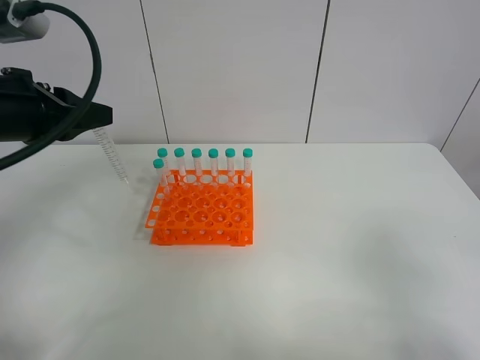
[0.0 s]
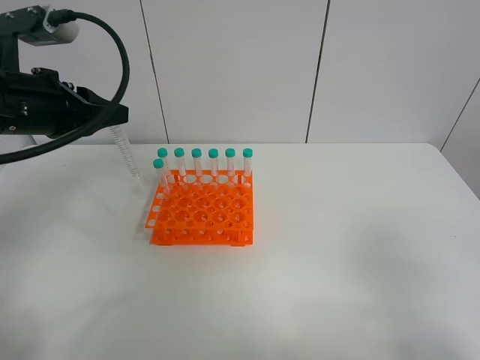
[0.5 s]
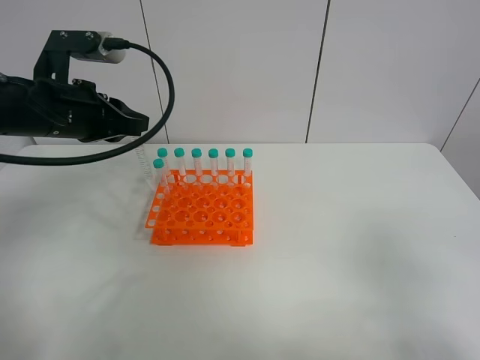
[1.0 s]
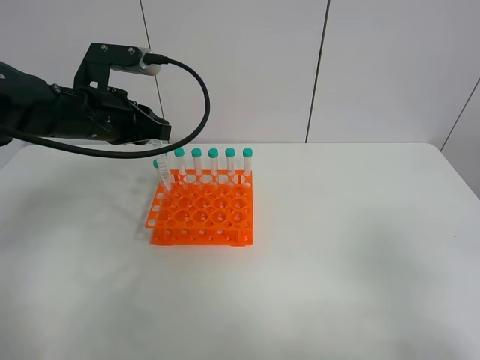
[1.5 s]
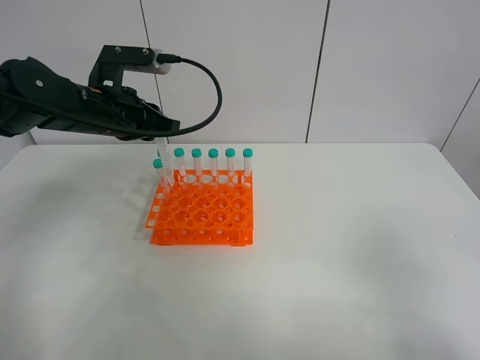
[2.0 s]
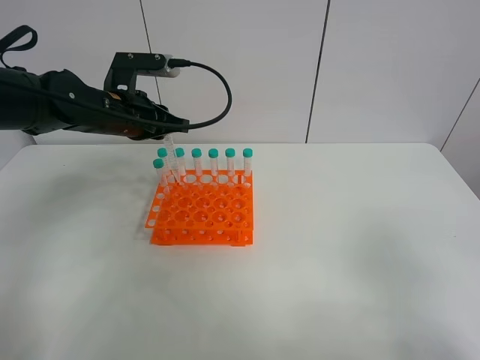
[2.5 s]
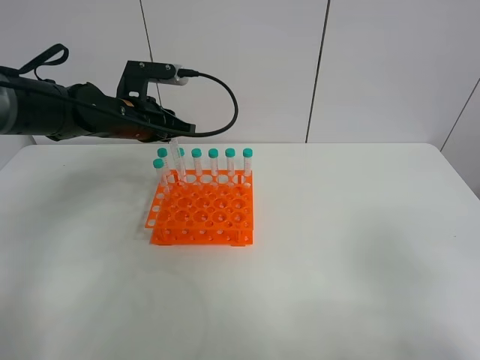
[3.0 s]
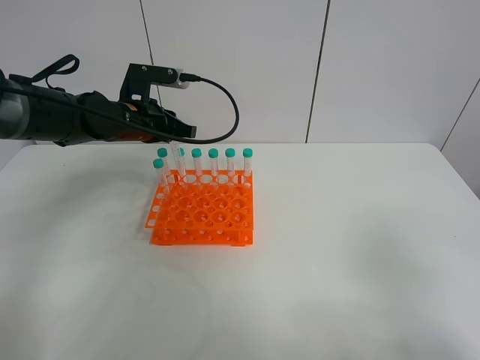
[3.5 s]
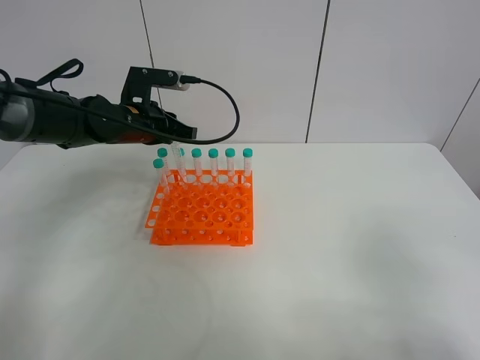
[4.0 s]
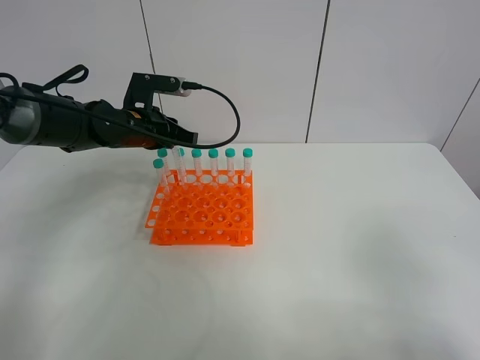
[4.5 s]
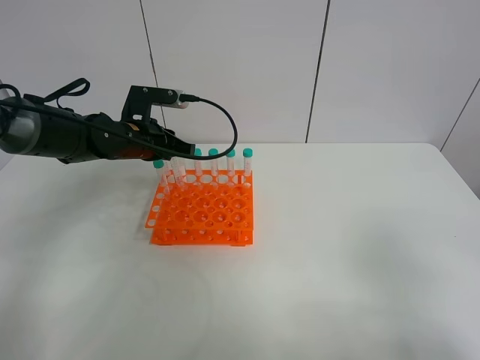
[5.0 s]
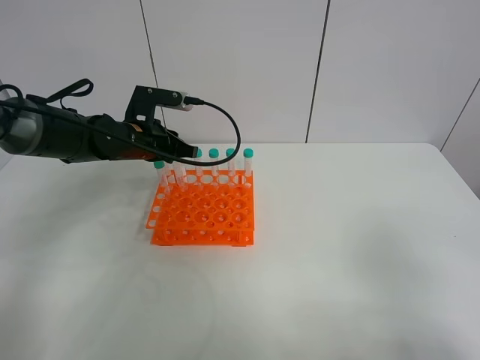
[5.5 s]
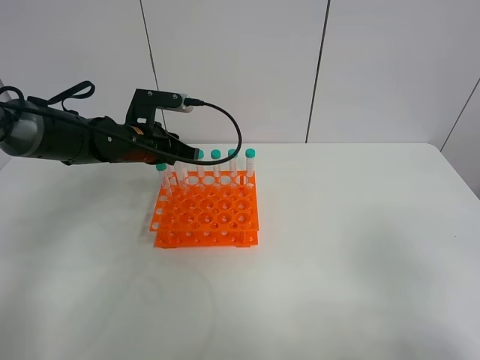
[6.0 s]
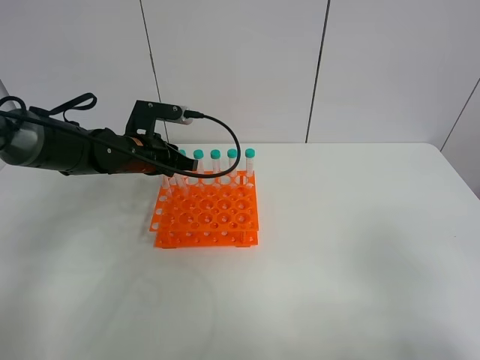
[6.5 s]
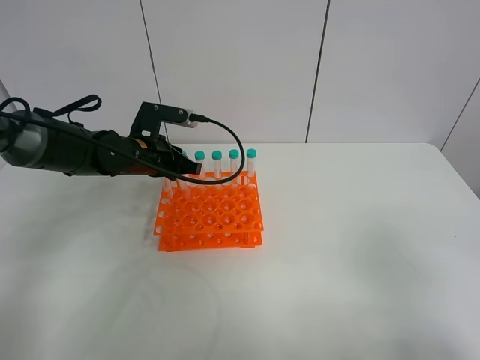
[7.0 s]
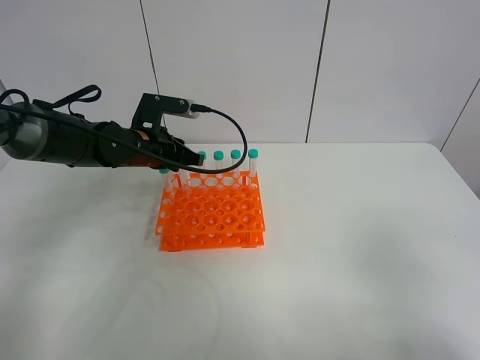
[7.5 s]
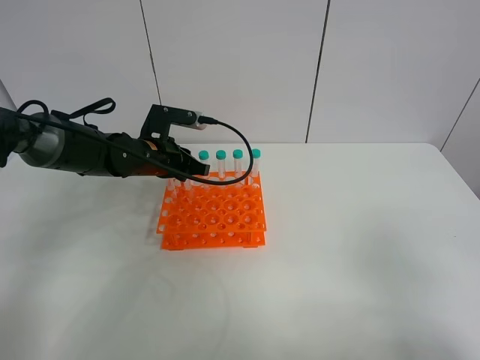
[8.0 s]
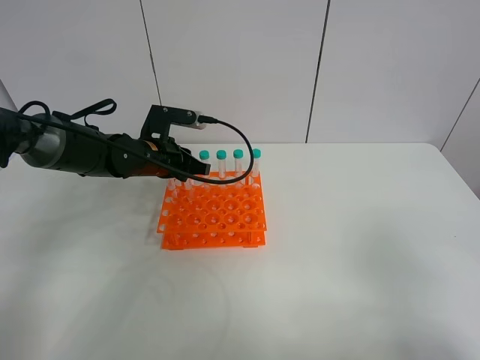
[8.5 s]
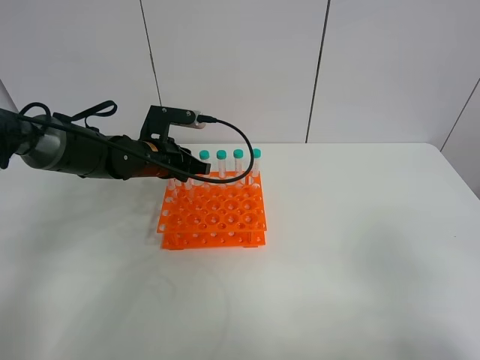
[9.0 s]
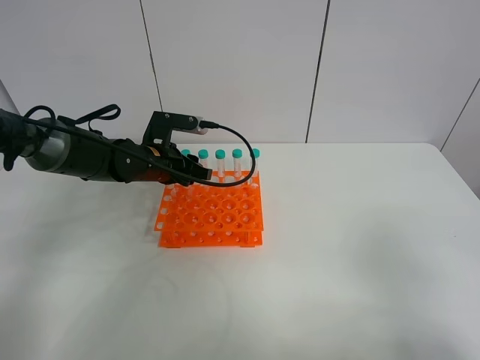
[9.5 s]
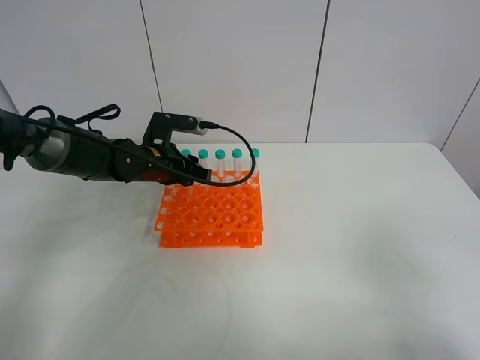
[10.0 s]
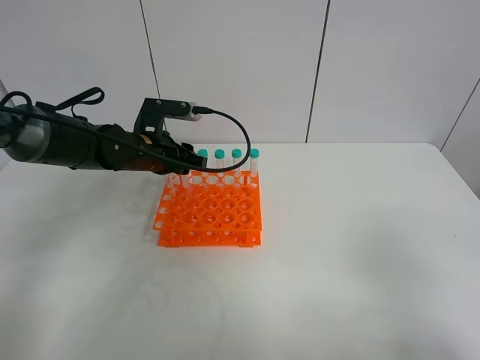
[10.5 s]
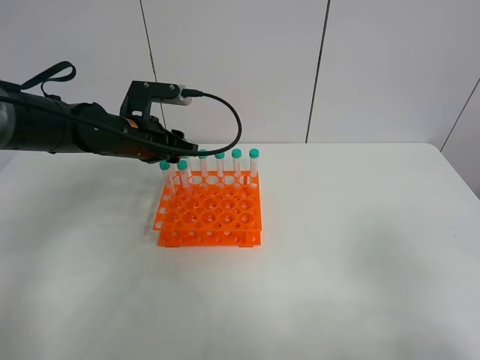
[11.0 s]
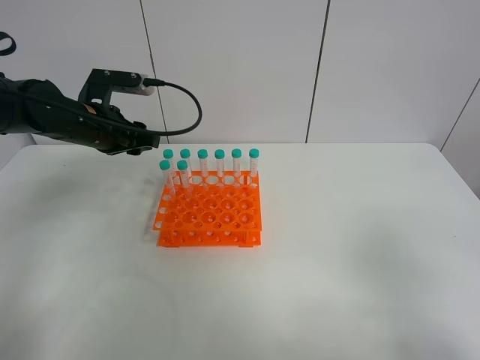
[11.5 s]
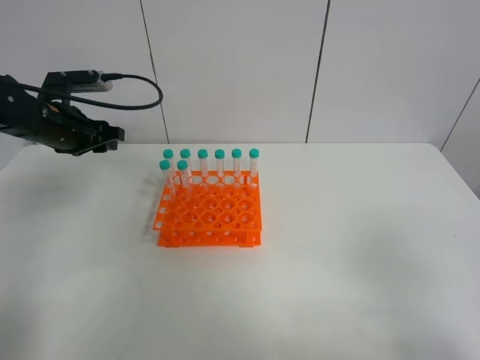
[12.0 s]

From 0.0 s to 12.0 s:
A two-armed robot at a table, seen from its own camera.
Task of the whole recording: Put the test tube on the table back onto the test tube rack.
Step, from 0.0 s to 11.5 s: Place the test tube on the test tube rack with the left gripper.
From 0.0 s to 2.0 s: The left gripper travels forward, to the right and downward by approximately 15 cm.
From 2.0 s to 4.0 s: The left gripper is displaced forward and downward by some 10 cm.
From 4.0 s to 8.0 s: There are only small adjustments of the grippers.
From 8.0 s to 10.0 s: The left gripper opens.
From 10.0 s to 12.0 s: The left gripper heads to the left and upward, covering about 15 cm.

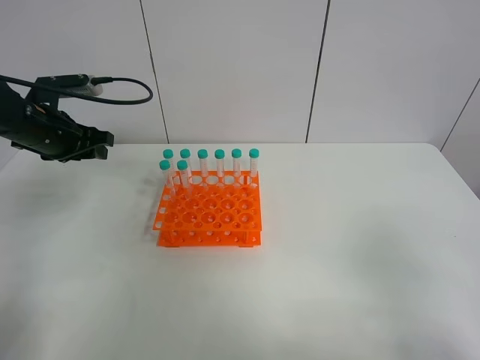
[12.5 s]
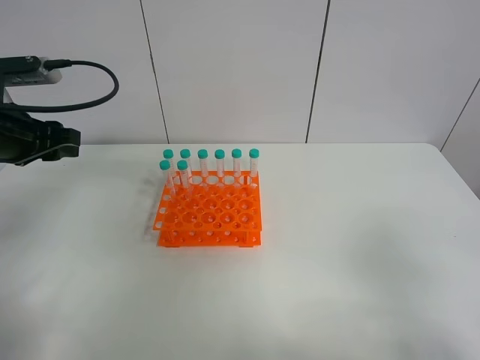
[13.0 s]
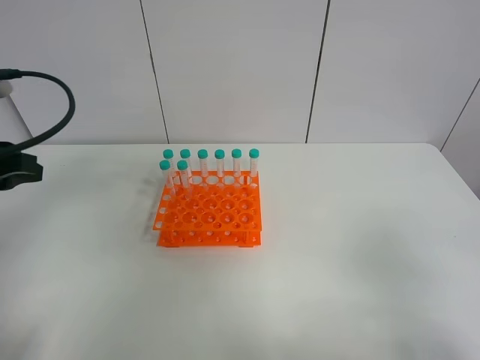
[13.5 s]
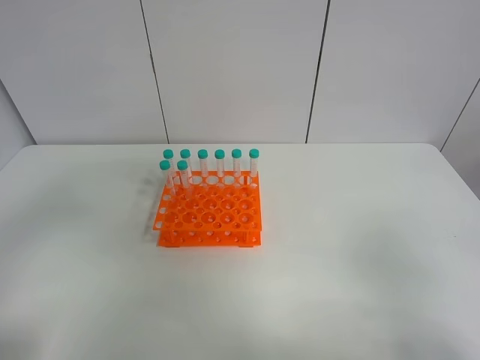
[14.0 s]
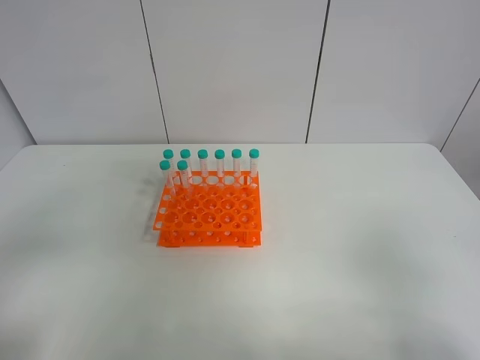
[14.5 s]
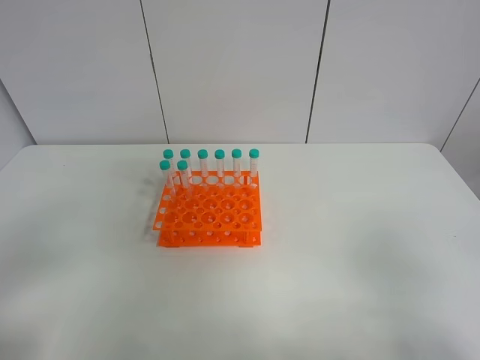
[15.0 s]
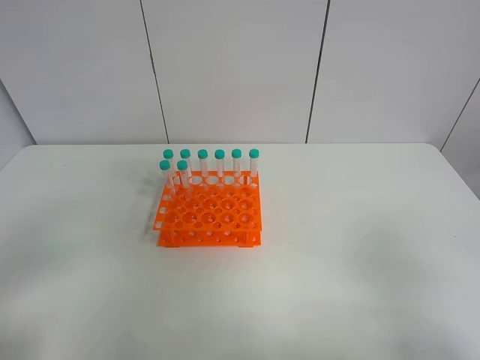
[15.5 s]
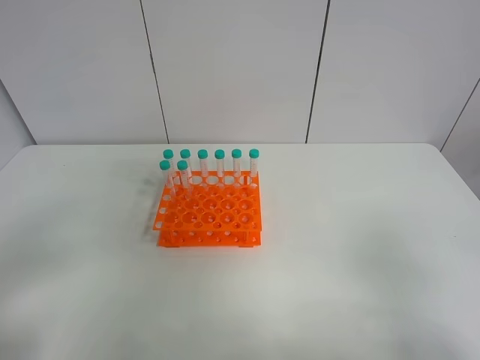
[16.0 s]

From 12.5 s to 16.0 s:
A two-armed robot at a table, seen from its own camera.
Task of the whole recording: Put the test tube on the table back onto the test tube rack.
From 12.5 s to 14.5 s: The left gripper travels backward by some 35 cm.

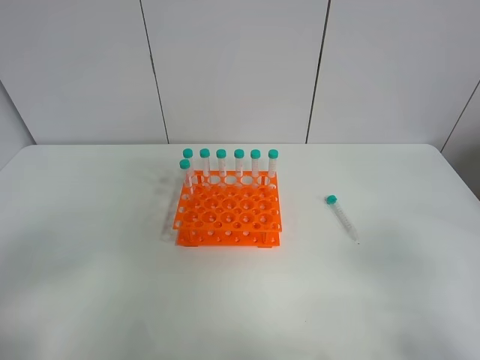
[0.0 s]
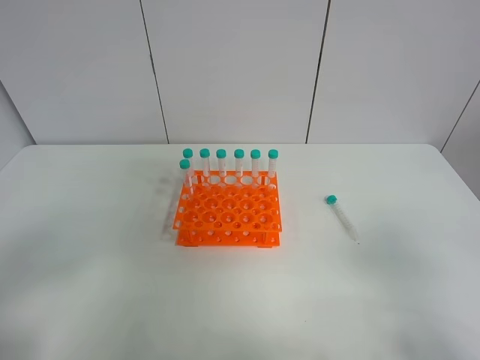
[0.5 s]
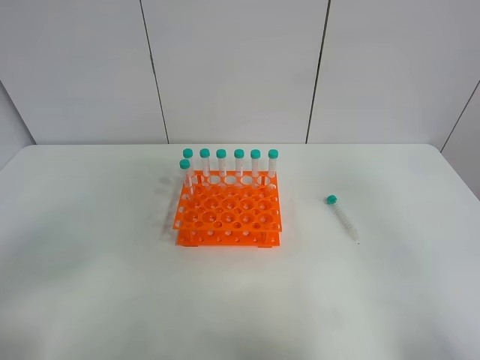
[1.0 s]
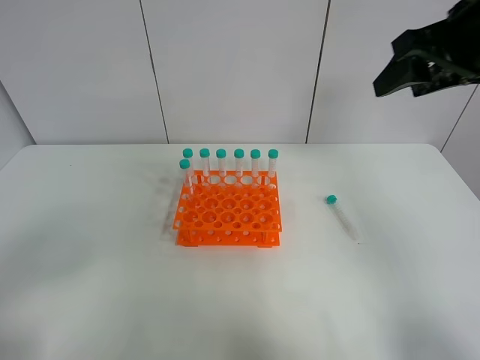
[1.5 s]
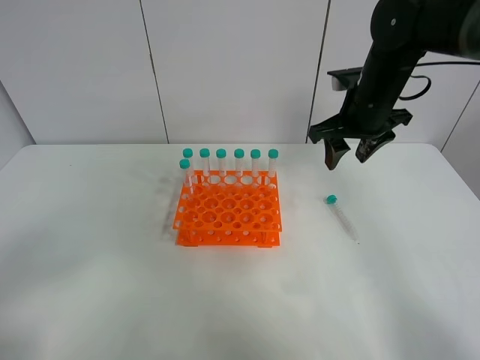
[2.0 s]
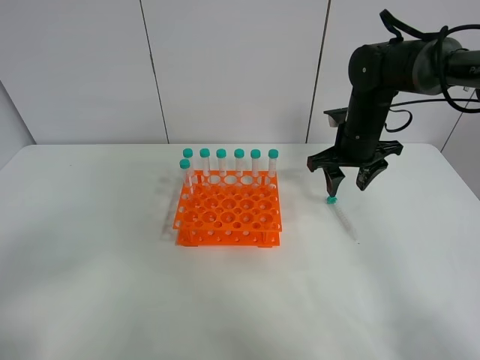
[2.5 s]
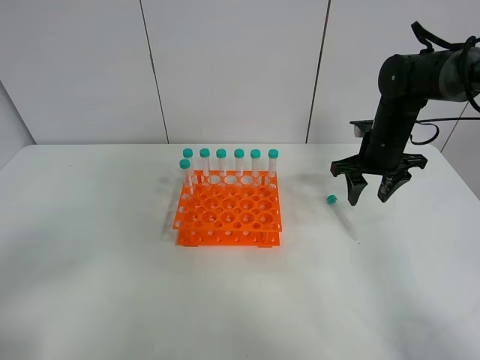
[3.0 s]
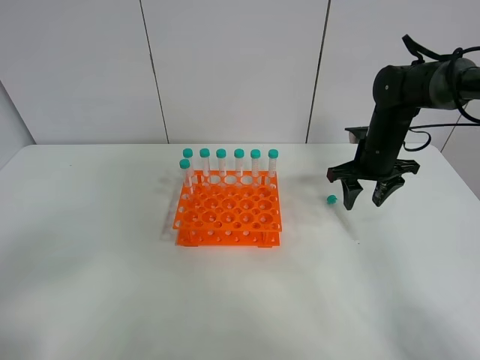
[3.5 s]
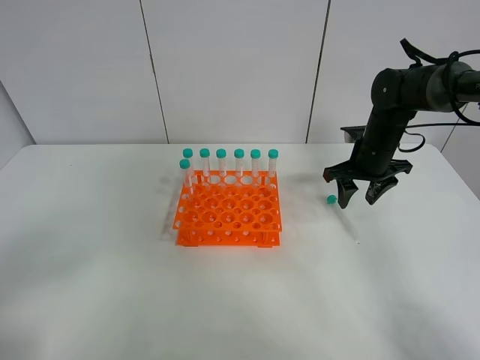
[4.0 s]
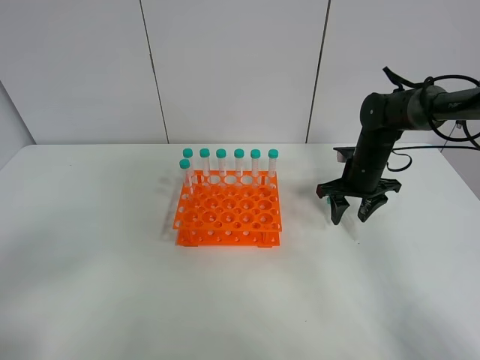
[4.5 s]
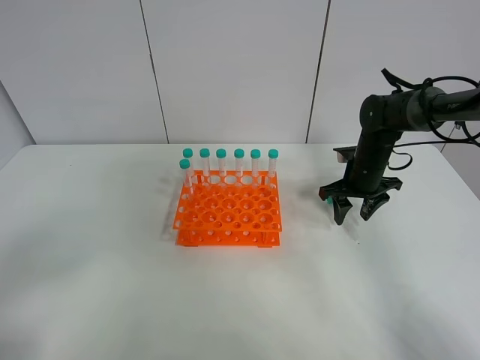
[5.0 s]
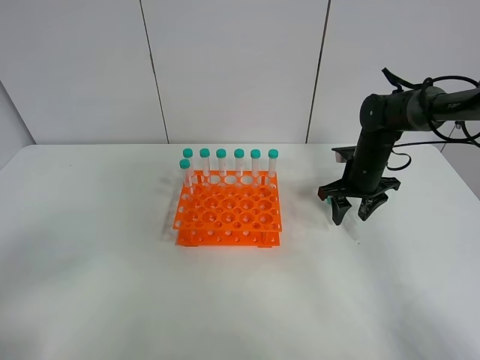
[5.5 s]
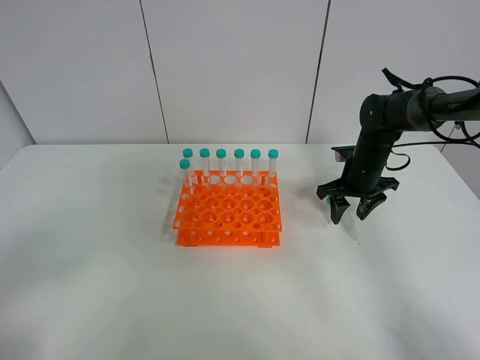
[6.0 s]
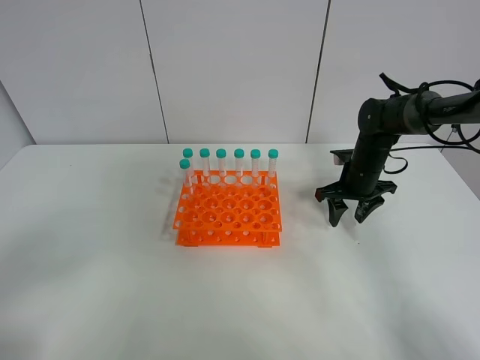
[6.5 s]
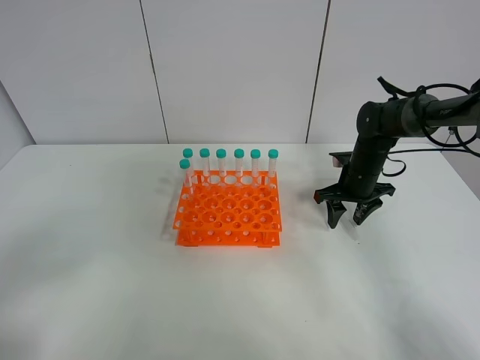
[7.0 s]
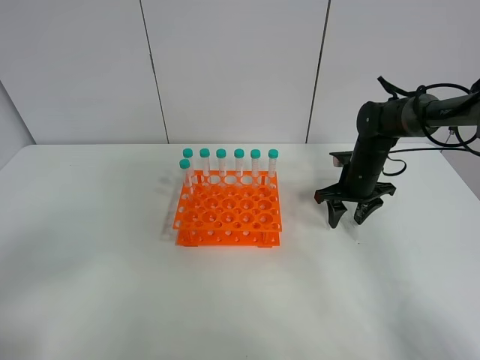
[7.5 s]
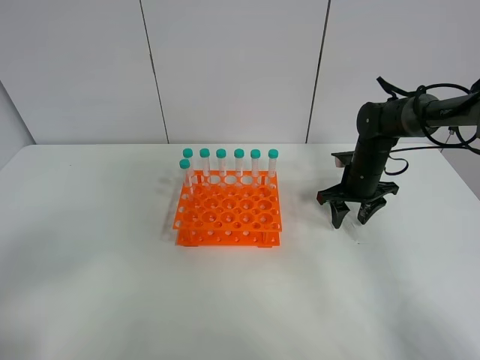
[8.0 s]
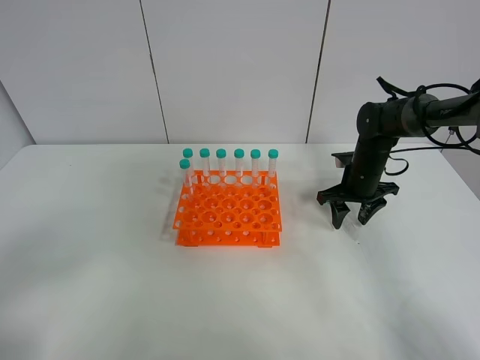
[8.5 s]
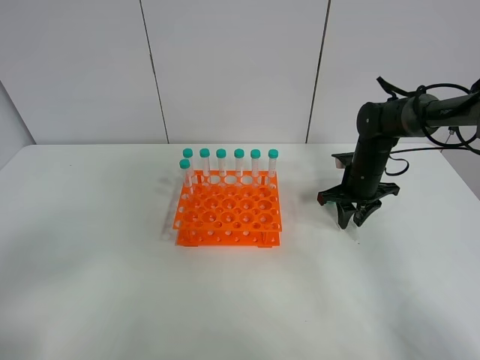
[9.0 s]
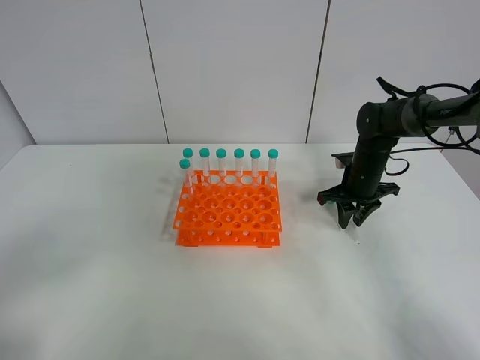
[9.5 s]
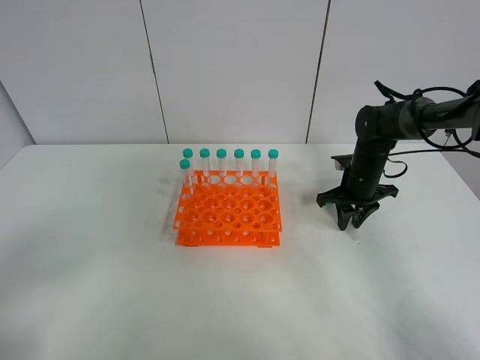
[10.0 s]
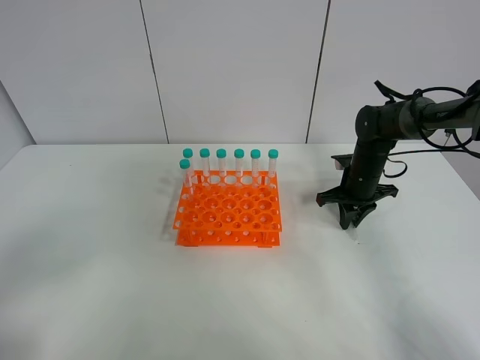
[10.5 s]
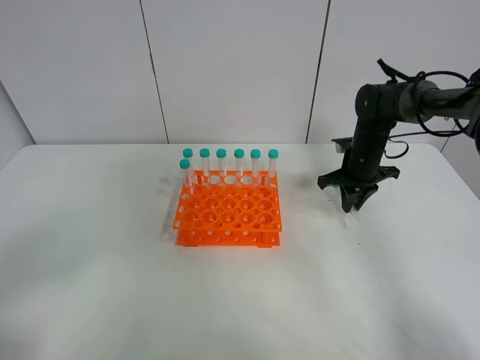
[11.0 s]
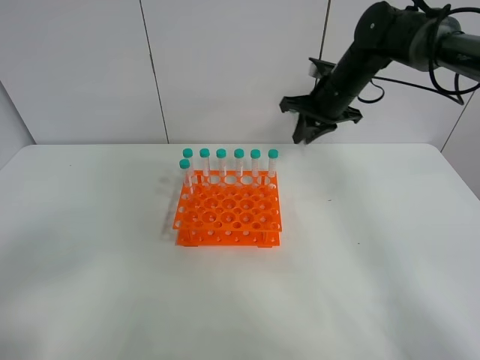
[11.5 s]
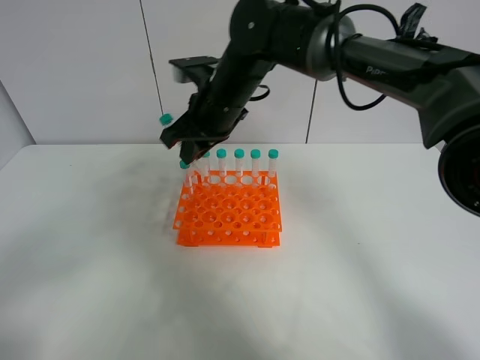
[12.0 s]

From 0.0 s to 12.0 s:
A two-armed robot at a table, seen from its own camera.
Task of the whole recording: Put the test tube on the table back onto the test tube rack.
Step, from 0.0 s to 11.0 s: Pick up the test tube with the right gripper.
From 0.0 s to 2.0 s: The right gripper heads forward, covering approximately 40 cm.
From 2.0 s to 4.0 s: The right gripper travels downward and to the right by approximately 10 cm.
From 4.0 s to 6.0 s: The grippers move only a little.
From 6.0 s to 8.0 s: Both grippers stay put.
From 8.0 s to 10.0 s: The right gripper closes up.
From 10.0 s to 12.0 s: The right gripper is displaced to the left and upward by some 30 cm.
